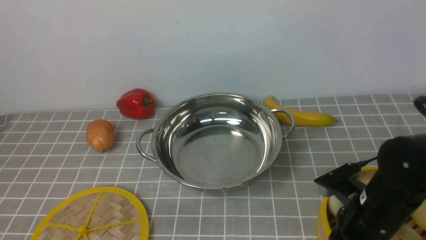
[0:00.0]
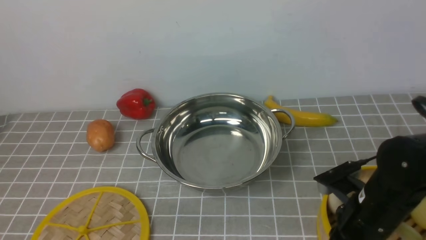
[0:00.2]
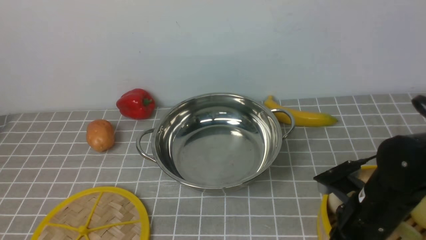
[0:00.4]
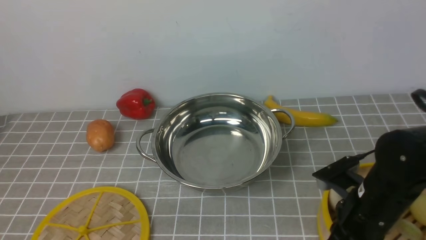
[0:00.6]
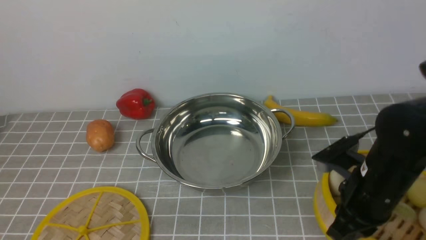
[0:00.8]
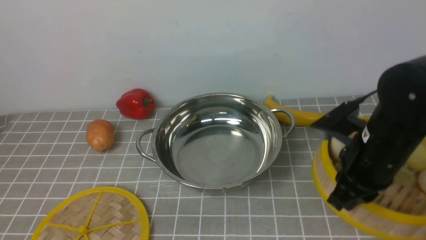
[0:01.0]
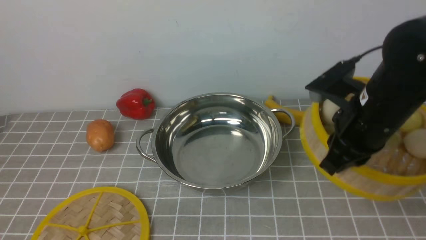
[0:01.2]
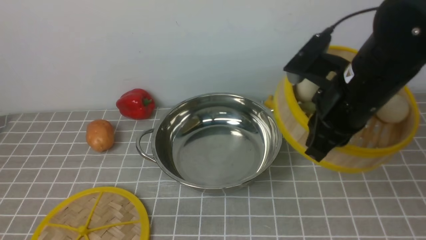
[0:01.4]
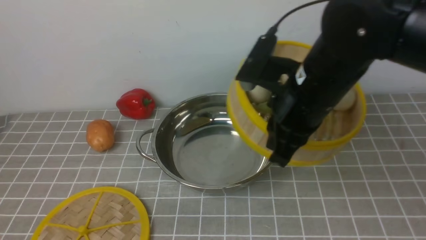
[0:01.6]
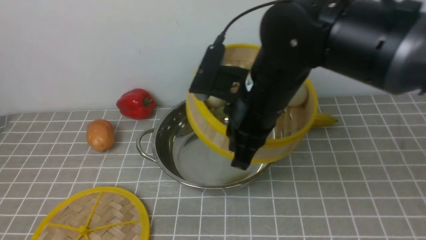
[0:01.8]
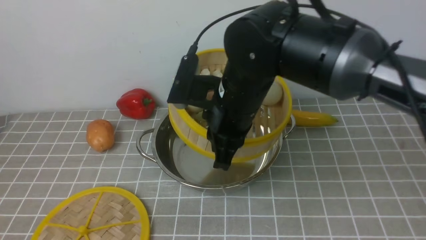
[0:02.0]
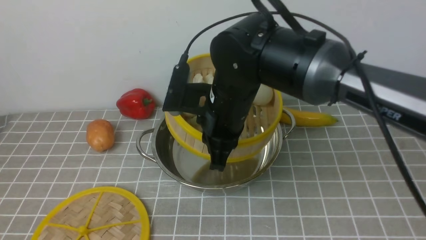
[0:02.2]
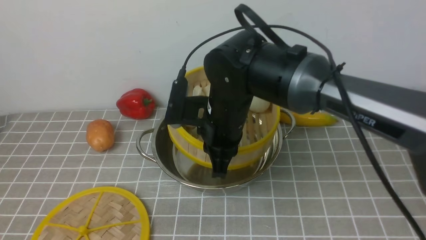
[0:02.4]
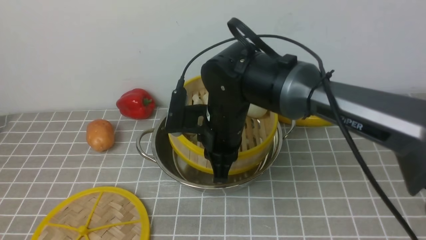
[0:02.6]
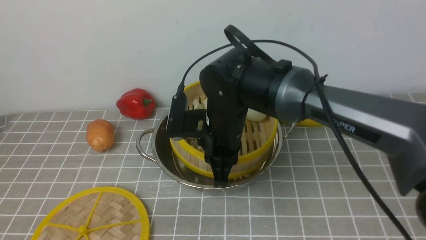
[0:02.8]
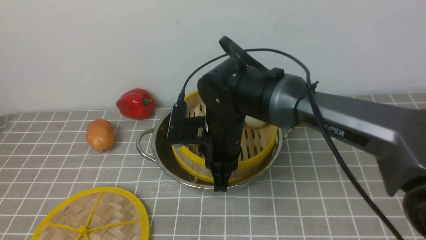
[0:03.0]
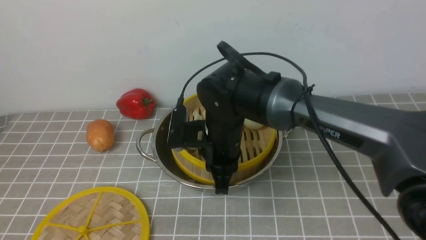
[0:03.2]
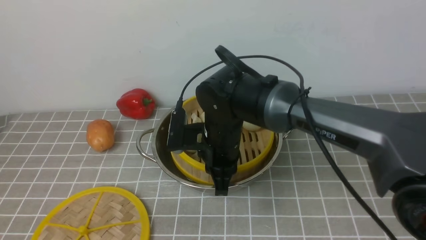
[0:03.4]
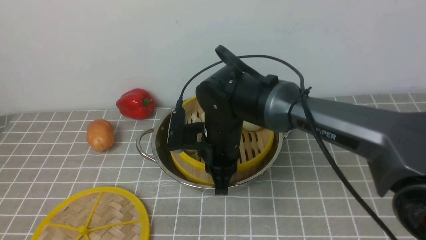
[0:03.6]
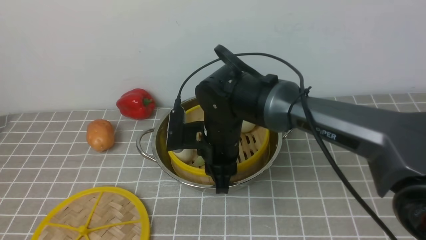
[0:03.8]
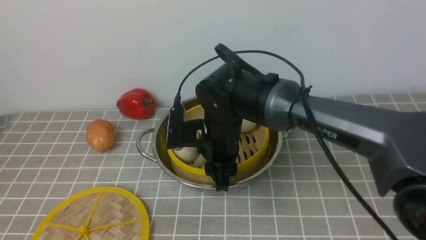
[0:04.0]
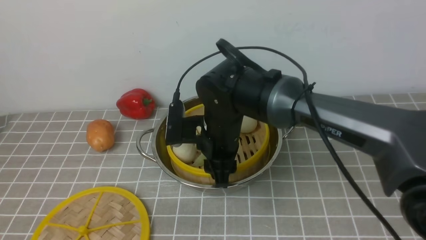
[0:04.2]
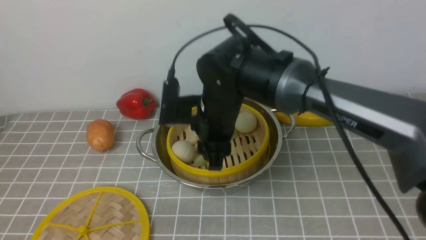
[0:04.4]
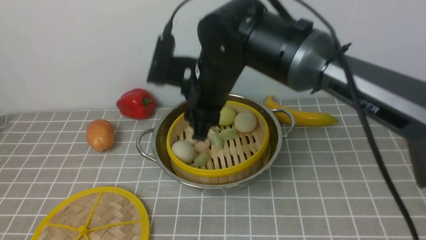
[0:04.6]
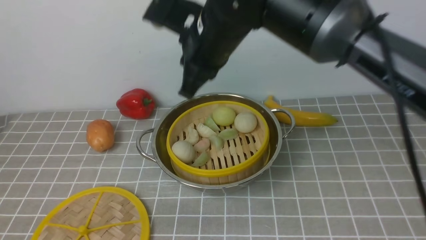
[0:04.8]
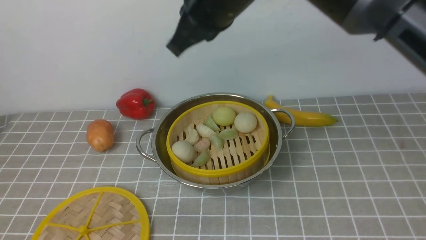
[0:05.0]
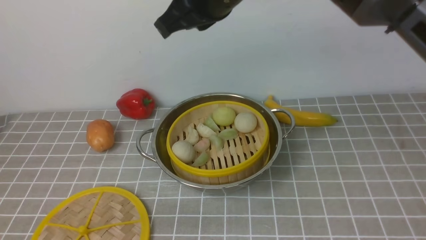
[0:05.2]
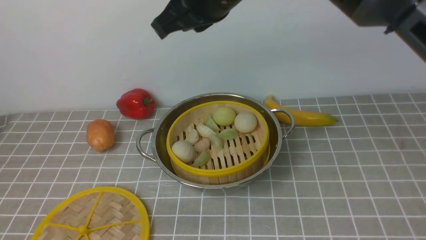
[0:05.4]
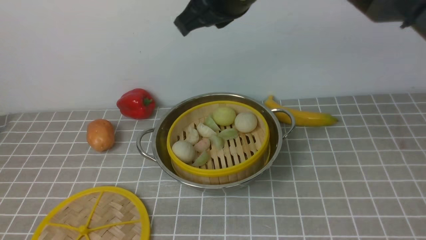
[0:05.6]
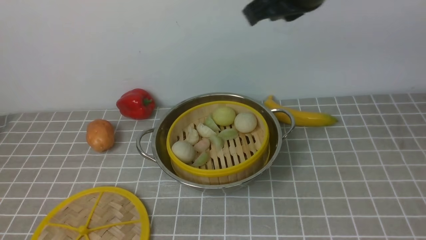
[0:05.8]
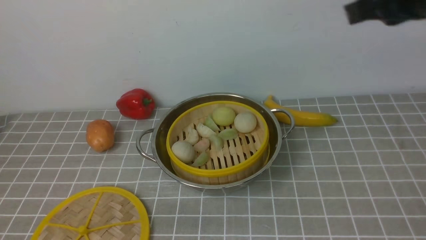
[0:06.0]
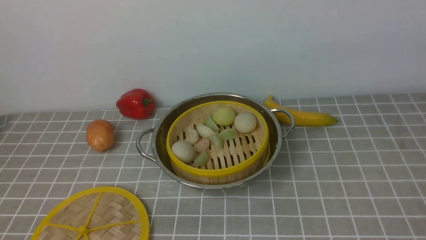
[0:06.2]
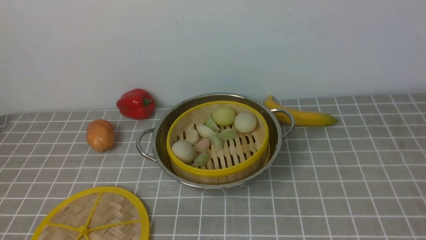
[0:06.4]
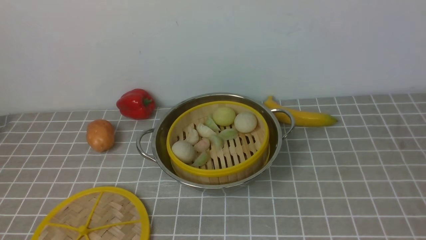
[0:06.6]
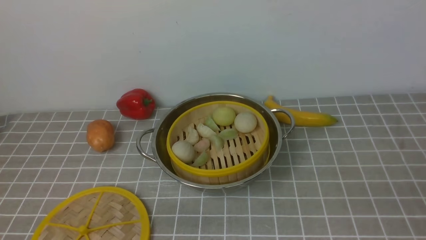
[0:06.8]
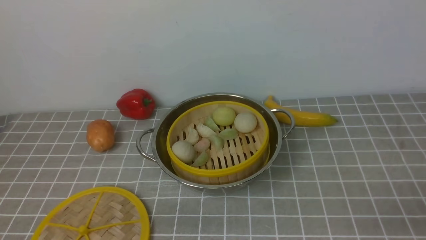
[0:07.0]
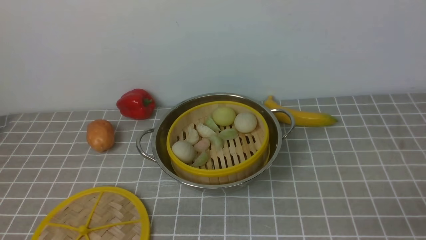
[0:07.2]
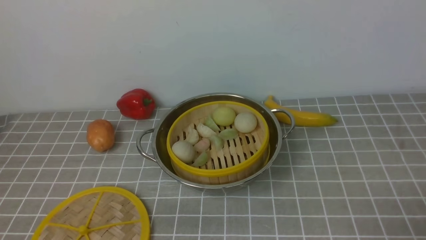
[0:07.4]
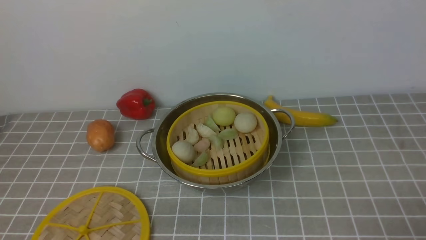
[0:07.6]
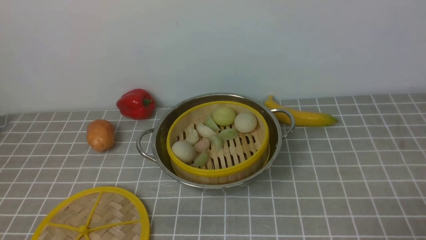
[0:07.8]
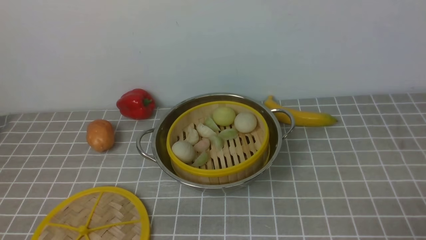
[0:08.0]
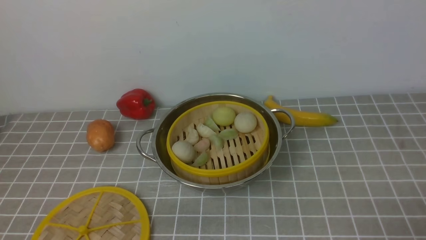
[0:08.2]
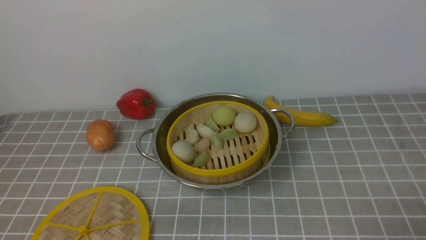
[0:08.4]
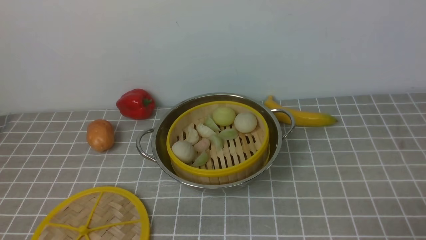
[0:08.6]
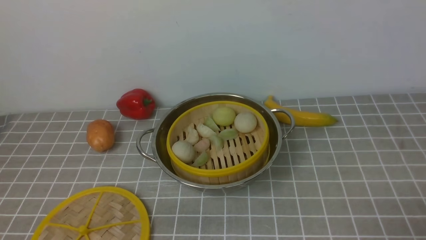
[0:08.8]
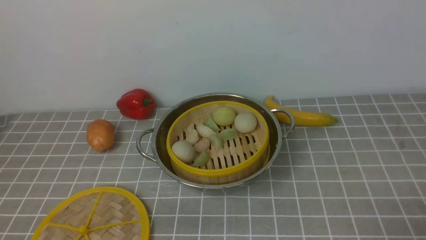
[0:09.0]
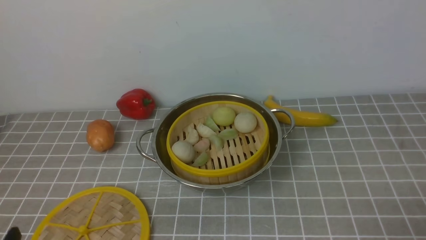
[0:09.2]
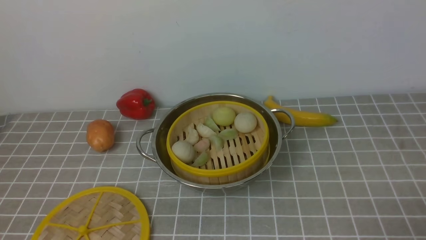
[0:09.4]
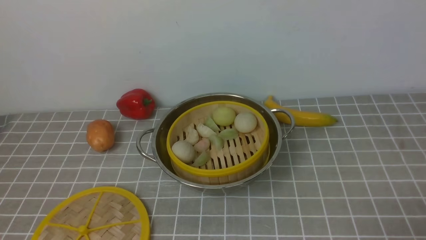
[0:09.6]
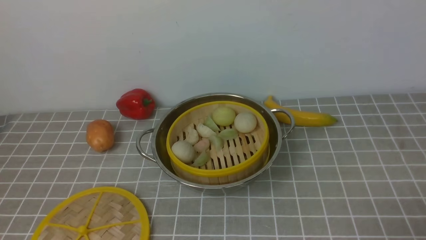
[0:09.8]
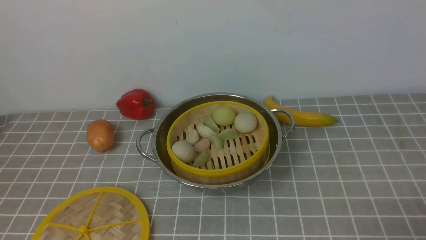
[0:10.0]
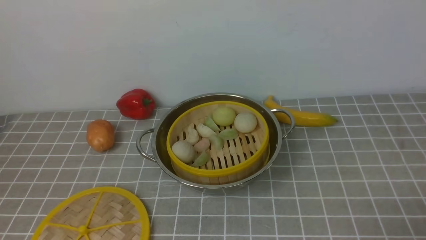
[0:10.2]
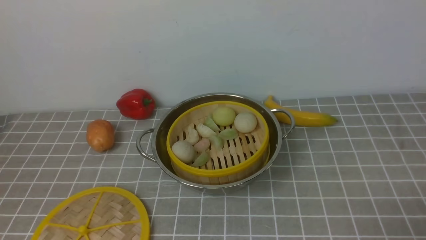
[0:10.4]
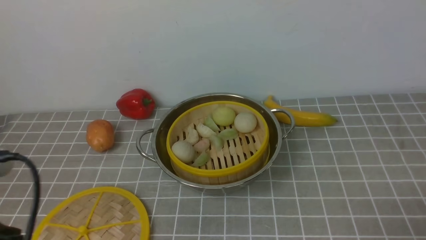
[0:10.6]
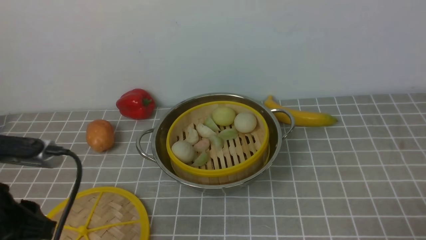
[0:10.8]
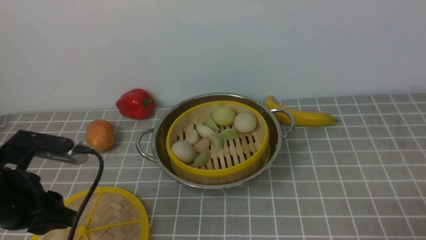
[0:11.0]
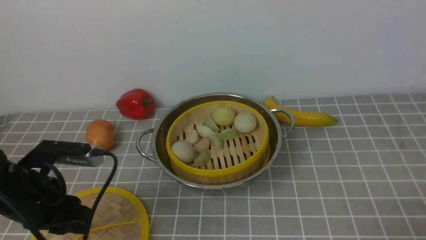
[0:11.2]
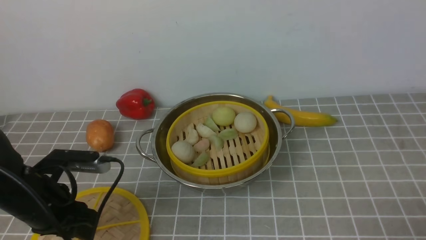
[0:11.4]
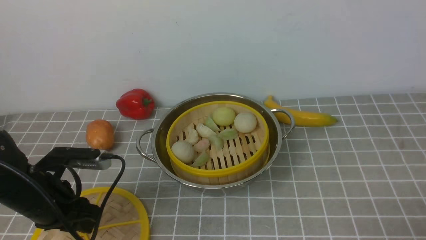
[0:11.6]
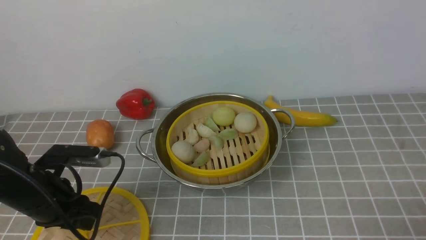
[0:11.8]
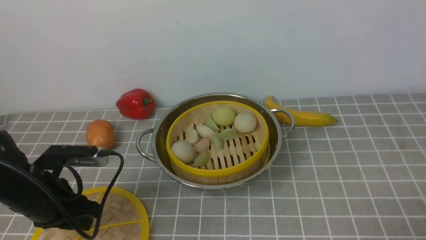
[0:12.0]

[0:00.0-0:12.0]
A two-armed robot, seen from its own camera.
Task of the whole recording: place the steamer in the pot on the grey tablecloth, and put the lid on the steamer.
Step, 0:01.0 to 0:04.2: use the right arm to put the steamer into the iron steamer pot in the middle.
0:00.0 to 0:01.6: The right gripper is displaced upward, to the left and forward by approximately 20 cm, and closes.
0:01.6 to 0:03.0: The right gripper is displaced downward and to the left by approximately 15 cm.
0:03.0 to 0:04.4: The right gripper opens.
0:04.4 to 0:06.0: The right gripper goes roughly 30 cm to the right and upward, and closes its fingers.
0:06.0 to 0:07.6: The right gripper heads downward and backward, covering roughly 30 cm, and opens its fingers.
0:07.6 to 0:09.0: The two grippers keep their place.
0:10.4 to 0:12.0: The left gripper heads forward and downward, covering roughly 25 cm.

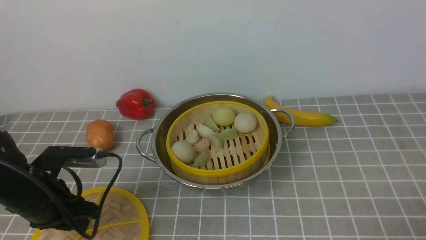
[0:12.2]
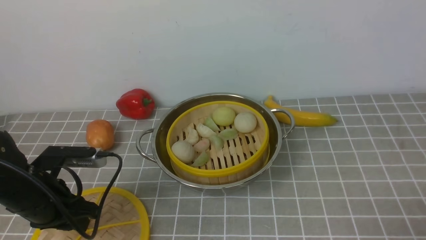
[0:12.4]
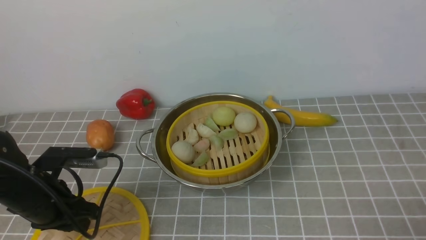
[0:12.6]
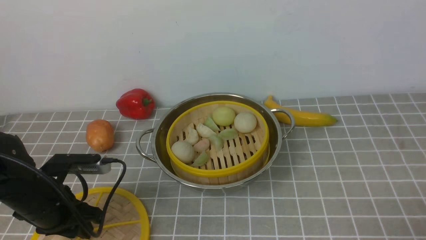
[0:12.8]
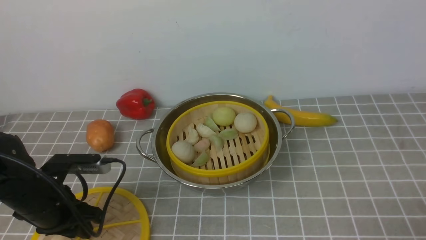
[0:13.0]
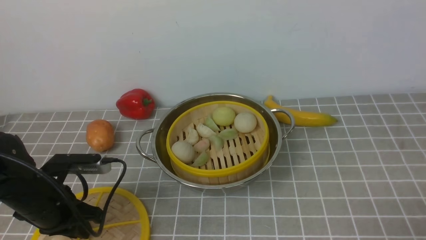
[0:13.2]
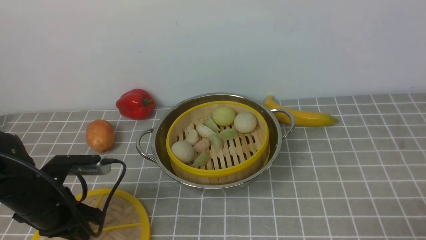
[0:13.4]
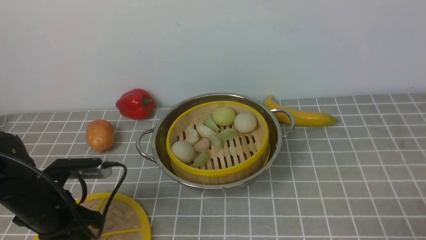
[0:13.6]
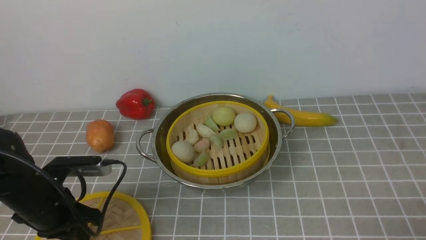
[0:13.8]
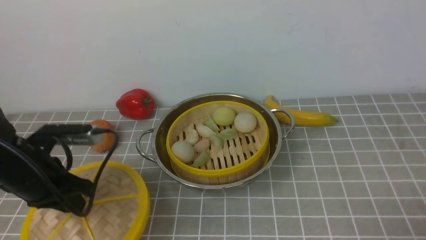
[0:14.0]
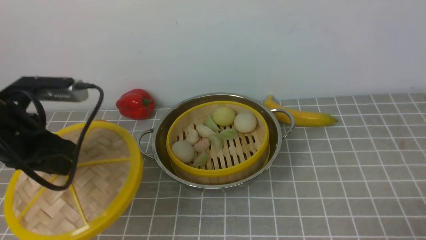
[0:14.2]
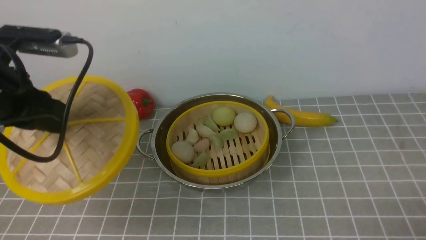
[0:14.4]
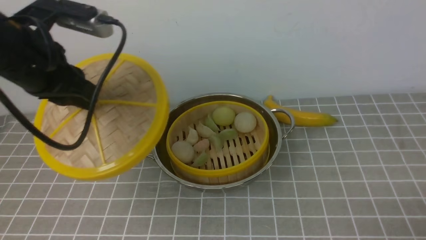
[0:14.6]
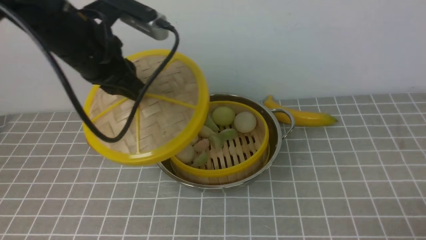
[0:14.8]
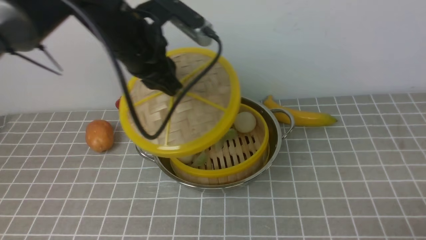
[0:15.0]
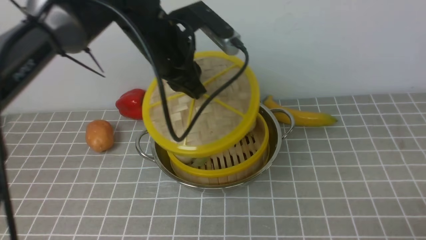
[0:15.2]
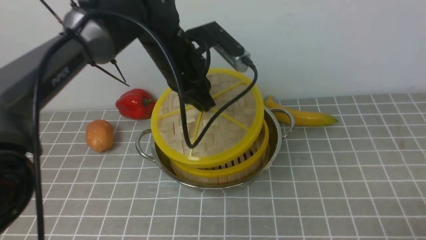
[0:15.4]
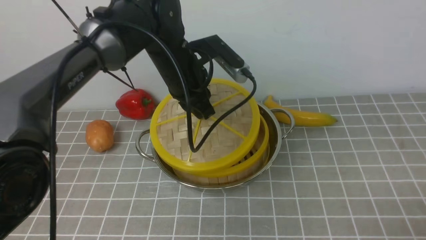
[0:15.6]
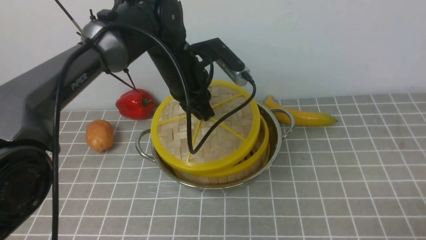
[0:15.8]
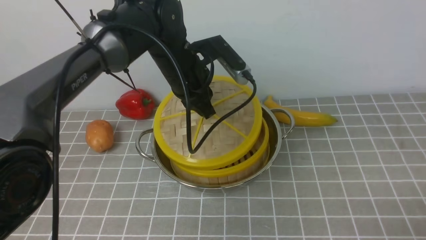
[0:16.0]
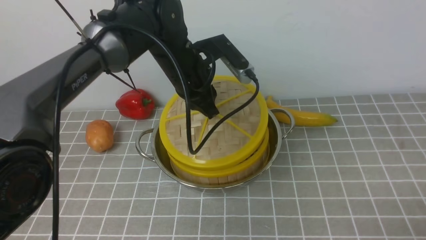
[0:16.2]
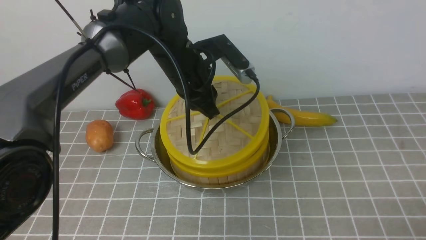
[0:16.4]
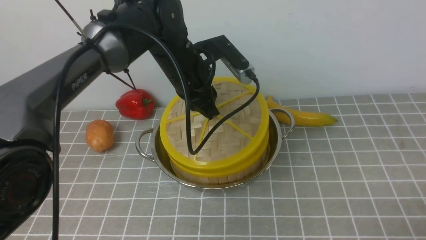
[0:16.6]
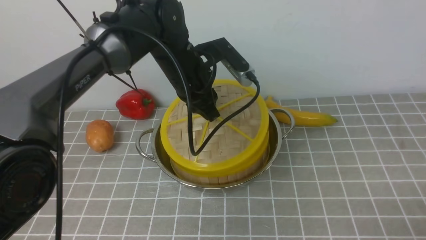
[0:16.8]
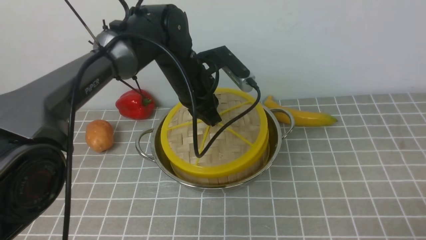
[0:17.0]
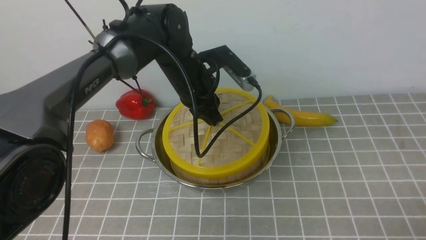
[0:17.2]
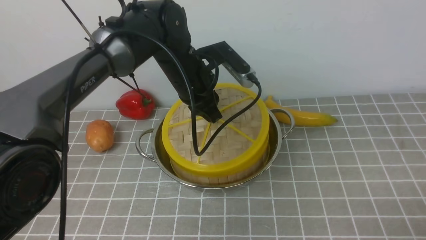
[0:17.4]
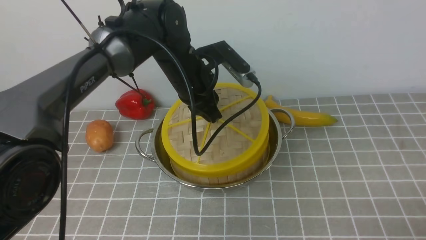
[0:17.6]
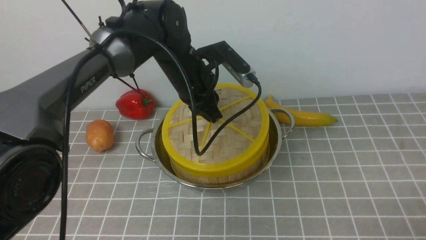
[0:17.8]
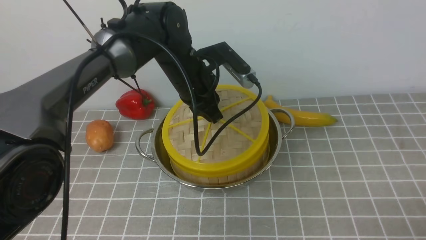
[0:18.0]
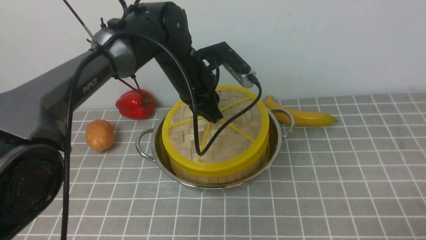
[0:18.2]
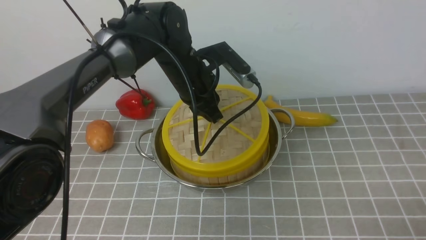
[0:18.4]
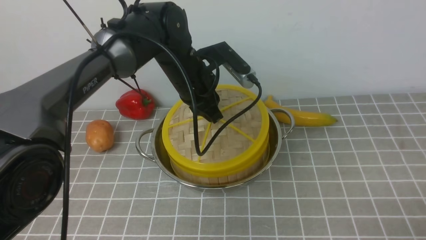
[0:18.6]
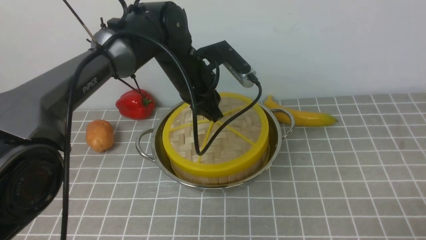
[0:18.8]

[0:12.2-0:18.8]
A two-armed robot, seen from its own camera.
Task of the whole recording: place the steamer in the pot on the grey tablecloth, and put the lid on the steamer.
0:12.2 to 0:13.8: The left gripper closes its fingers.
0:13.8 to 0:15.4: The left gripper is displaced to the right, forward and upward by approximately 25 cm.
0:17.2 to 0:18.8: The left gripper opens.
